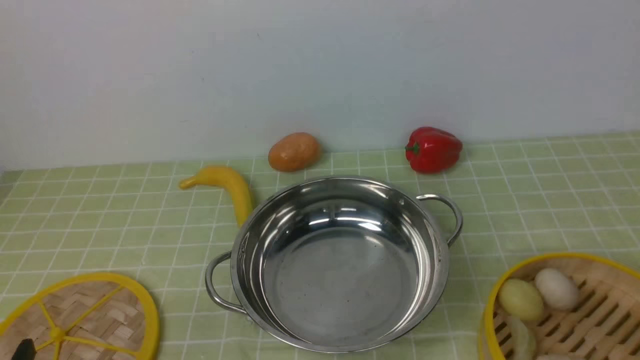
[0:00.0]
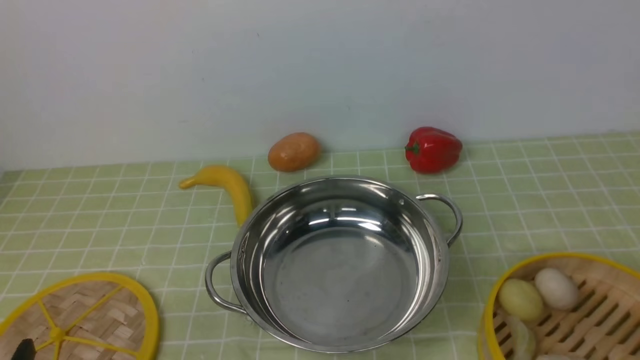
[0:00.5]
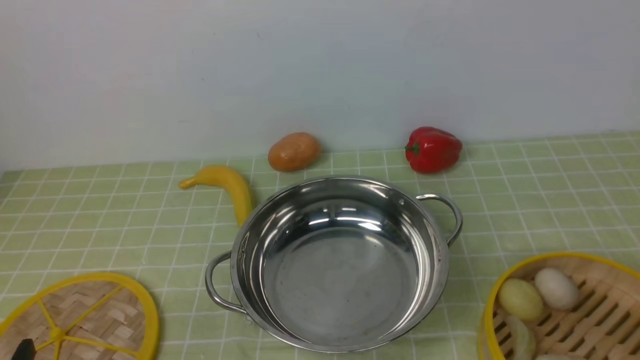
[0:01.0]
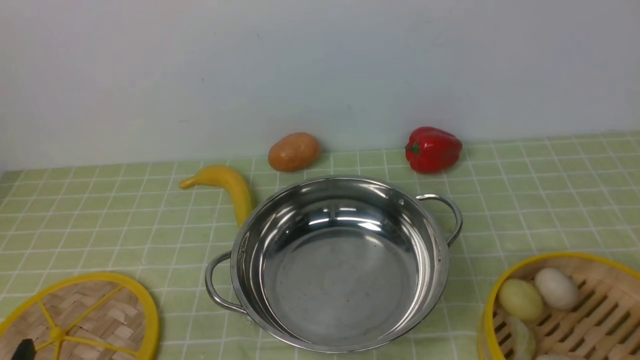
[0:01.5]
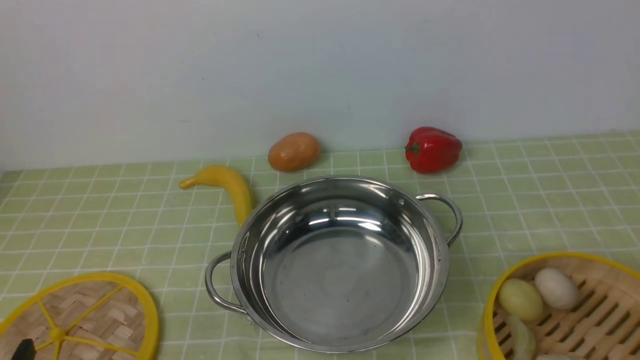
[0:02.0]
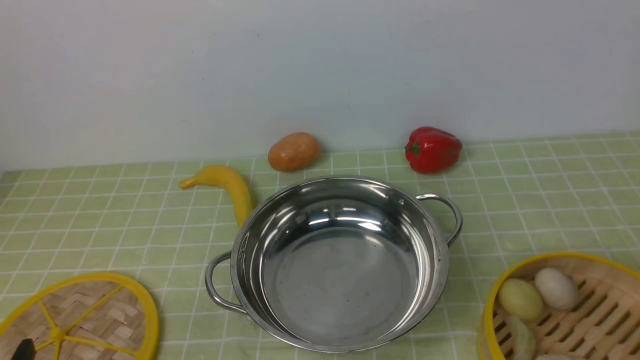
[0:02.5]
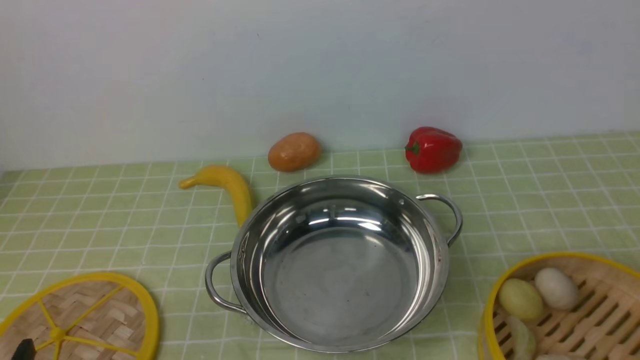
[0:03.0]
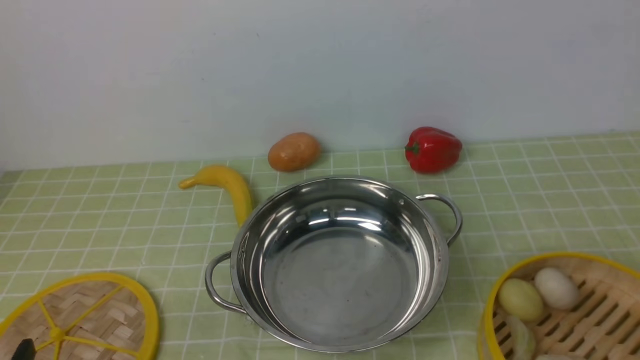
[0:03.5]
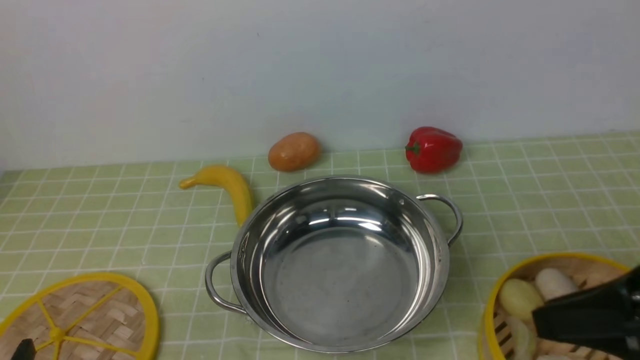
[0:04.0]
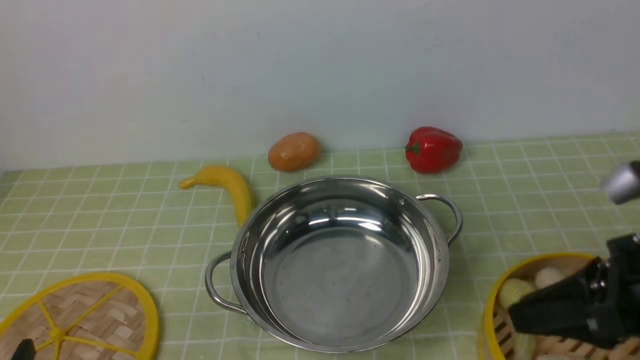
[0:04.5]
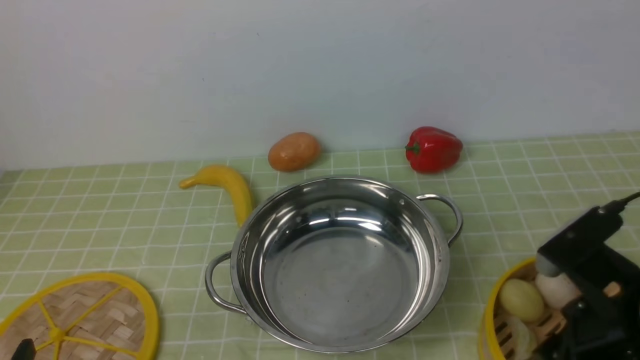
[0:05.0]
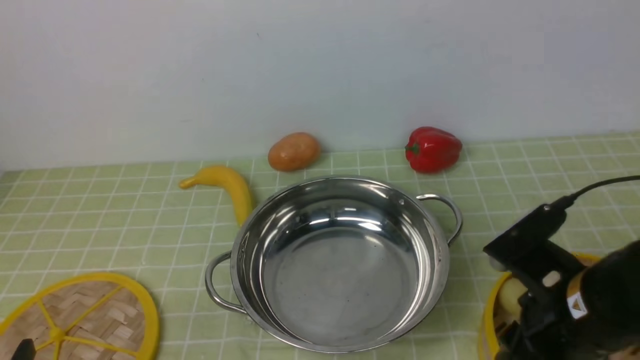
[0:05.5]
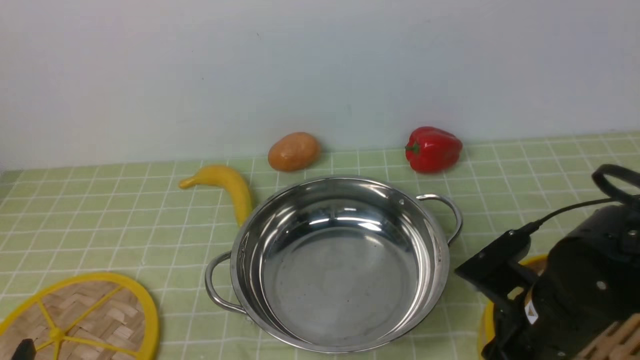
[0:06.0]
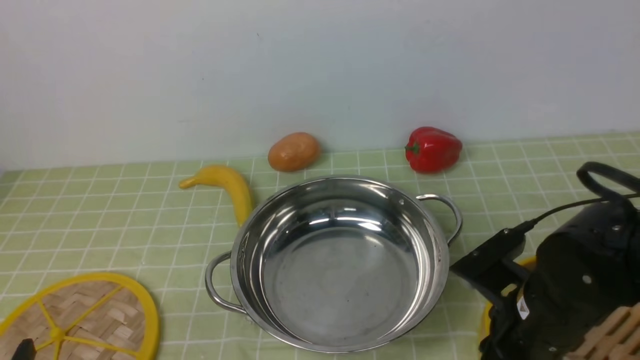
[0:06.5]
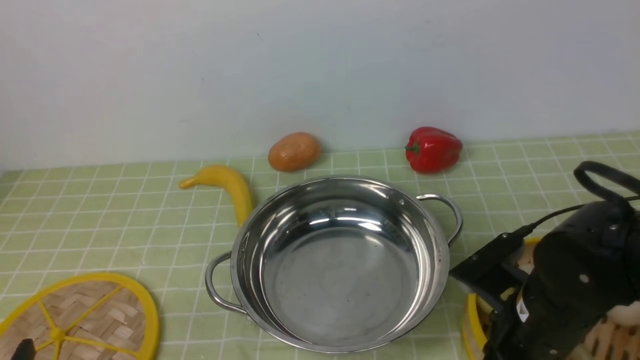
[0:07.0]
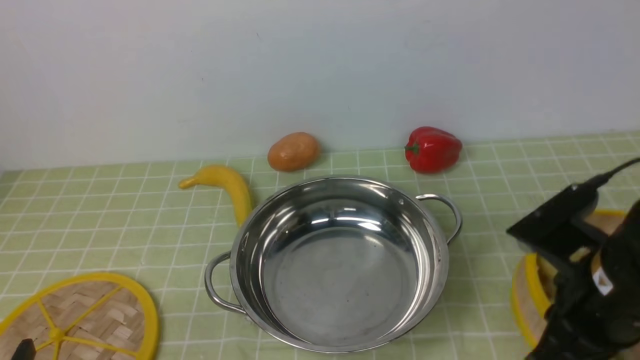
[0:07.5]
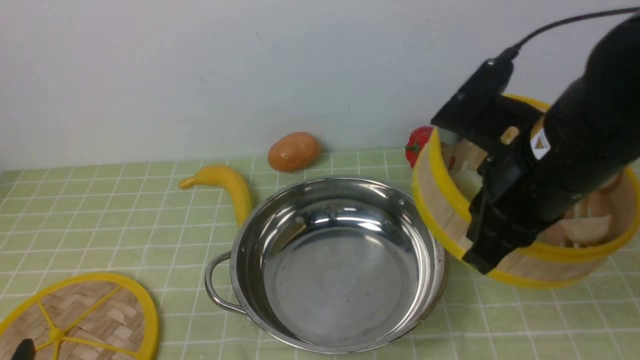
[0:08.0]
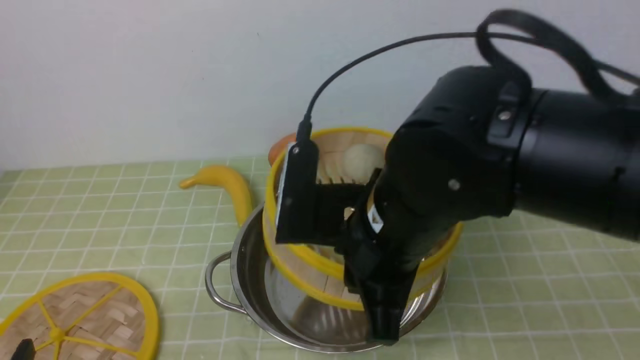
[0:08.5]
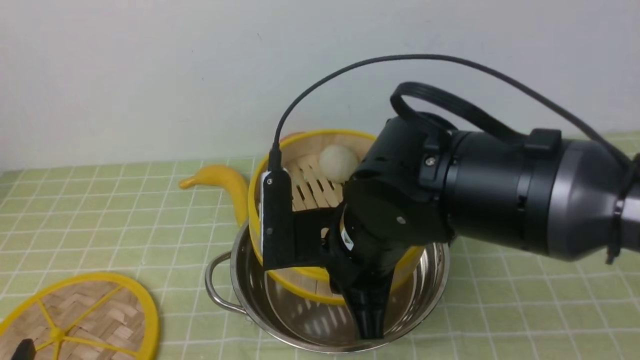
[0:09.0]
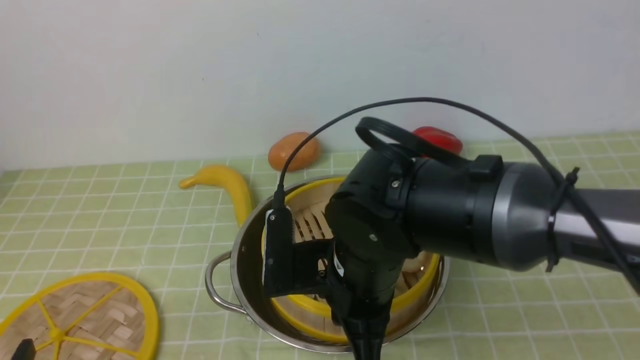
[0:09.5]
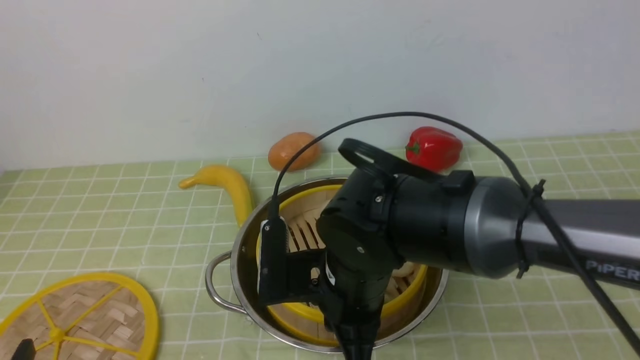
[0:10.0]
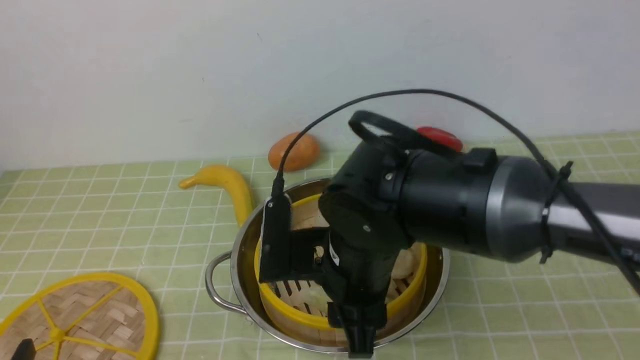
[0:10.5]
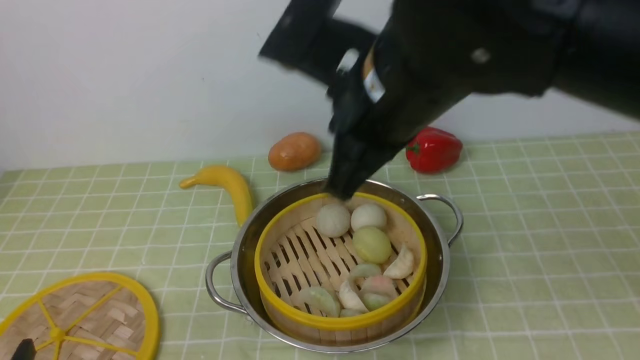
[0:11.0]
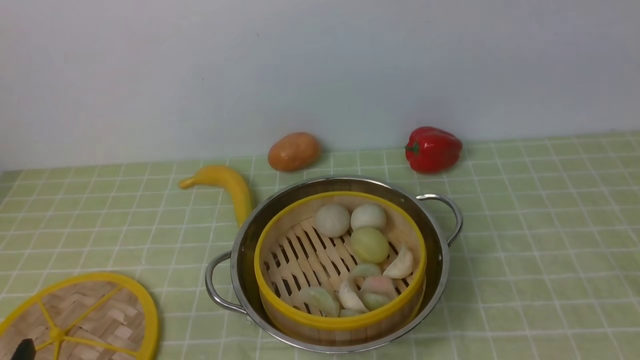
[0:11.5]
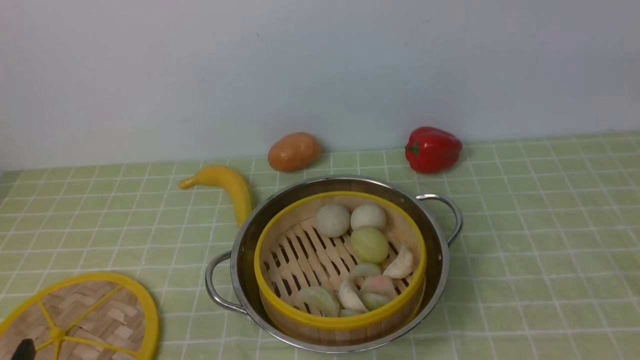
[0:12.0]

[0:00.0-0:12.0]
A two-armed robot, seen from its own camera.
Task of the whole recording: place the steamer in the pot on the green tablecloth, and put the lid on the steamer.
Step, 0:00.0 to 0:07.5: use the right arm to lift the steamer closest to it.
Step, 0:08.0 to 0:11.0: use the right arm to put the steamer into the iron steamer pot in the middle.
0:02.0 to 0:04.0: The right gripper shifts about 15 cm forward, to the left and upward.
0:04.0 to 0:06.0: The right gripper moves downward, to the left and forward, about 15 cm.
0:06.0 to 0:08.0: The right gripper goes roughly 15 cm upward, and closes up.
0:08.0 to 0:10.0: The right gripper moves to the left and downward, roughly 15 cm.
0:10.0 to 0:12.0: The right gripper shifts approximately 30 cm upward and to the right, and closes its fingers.

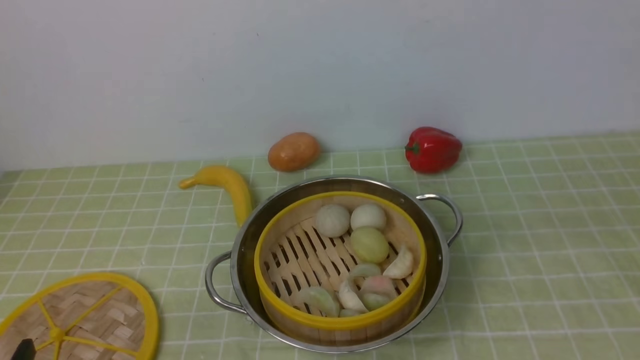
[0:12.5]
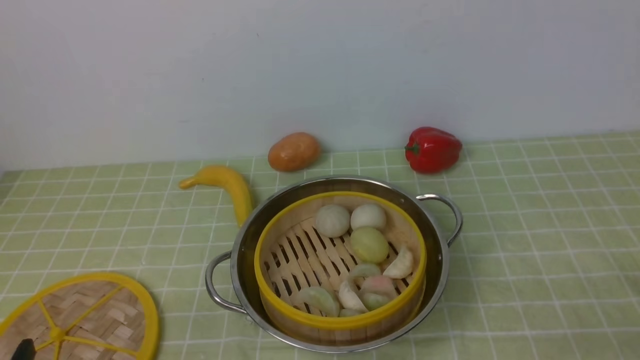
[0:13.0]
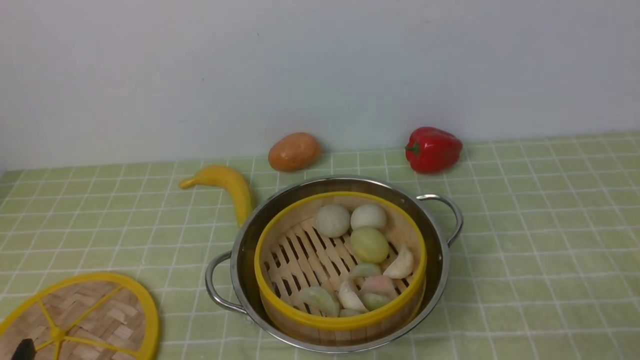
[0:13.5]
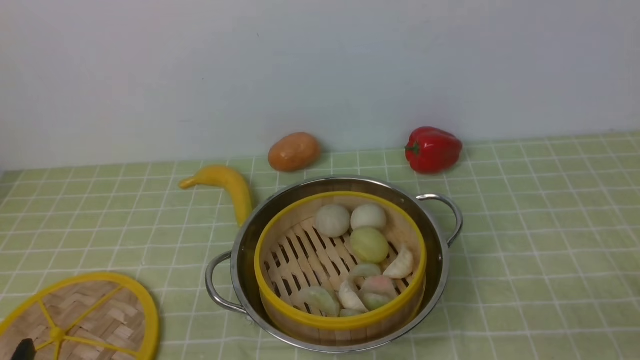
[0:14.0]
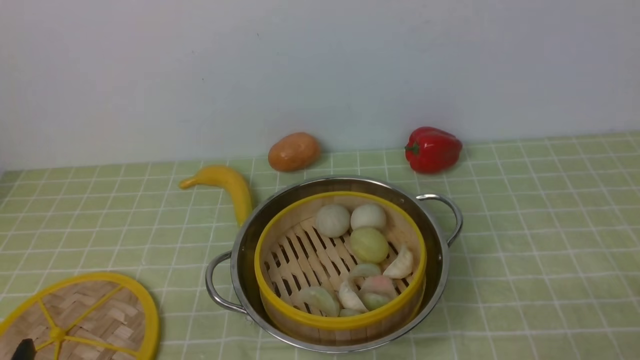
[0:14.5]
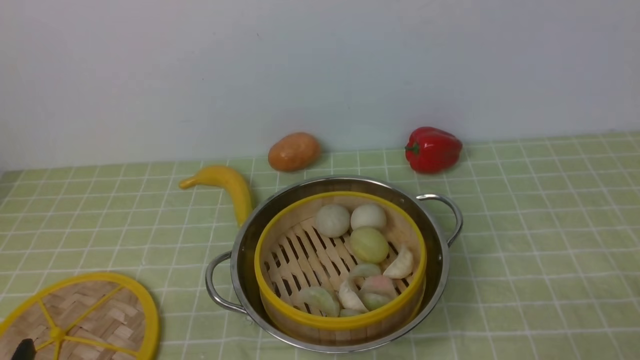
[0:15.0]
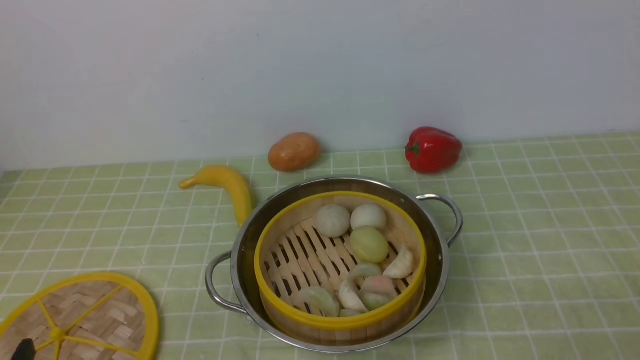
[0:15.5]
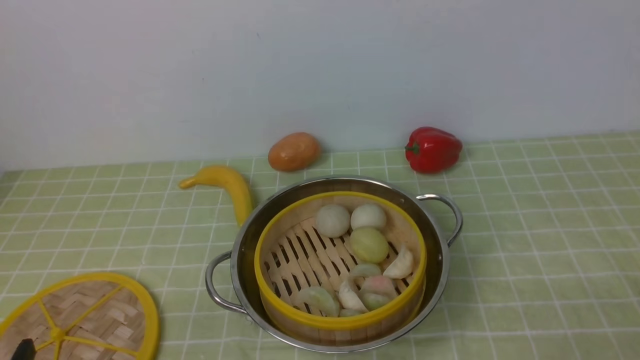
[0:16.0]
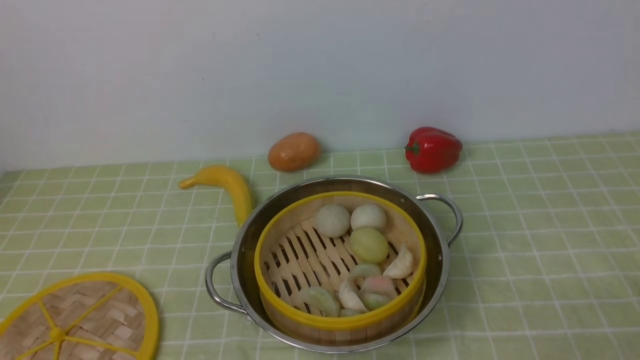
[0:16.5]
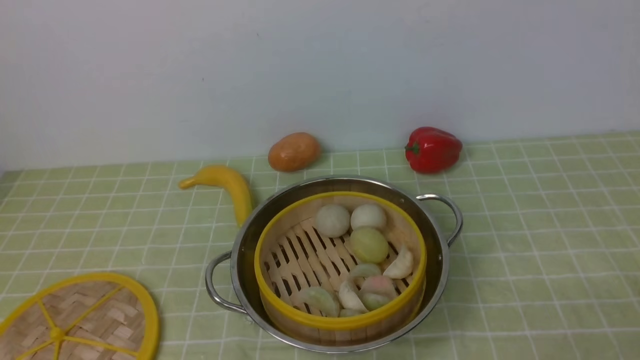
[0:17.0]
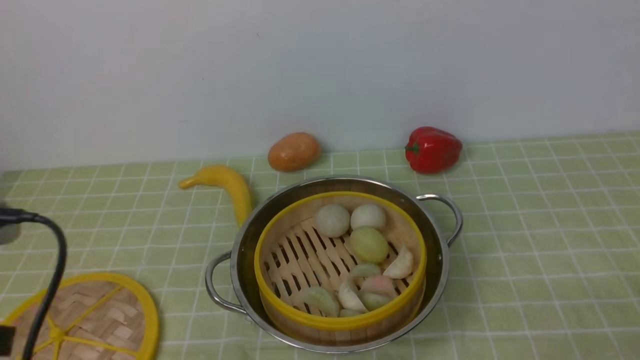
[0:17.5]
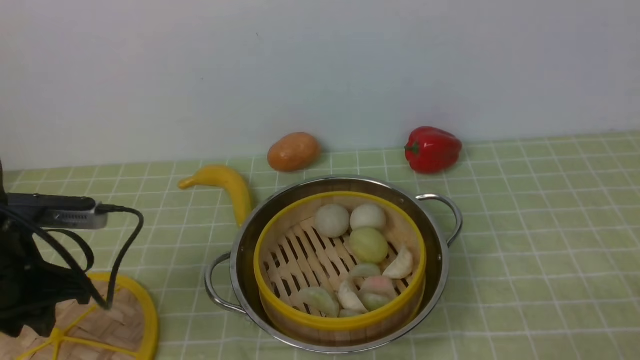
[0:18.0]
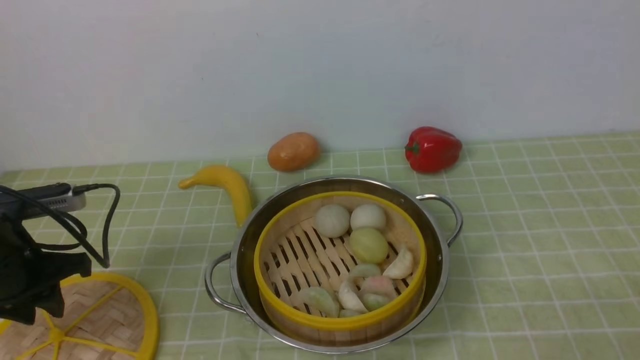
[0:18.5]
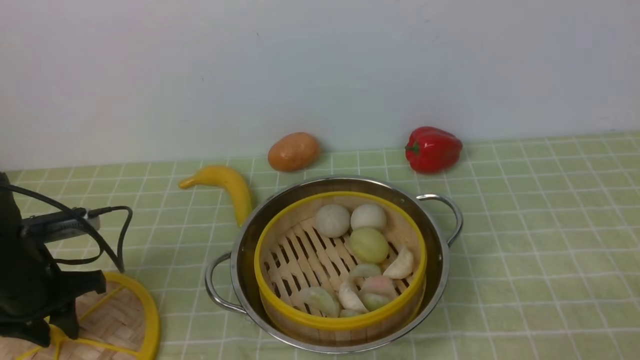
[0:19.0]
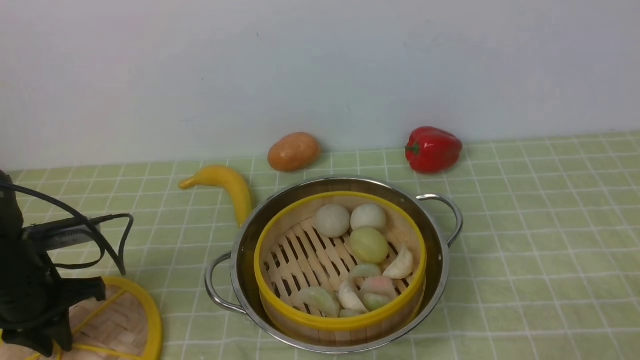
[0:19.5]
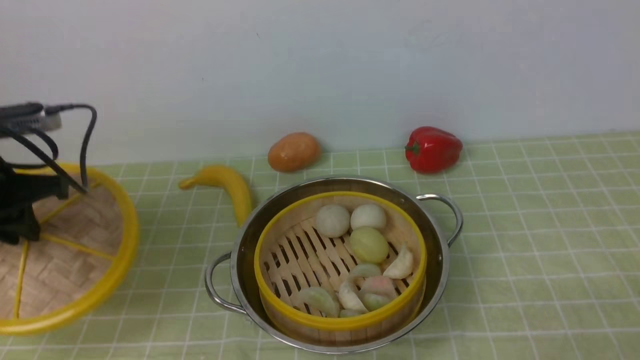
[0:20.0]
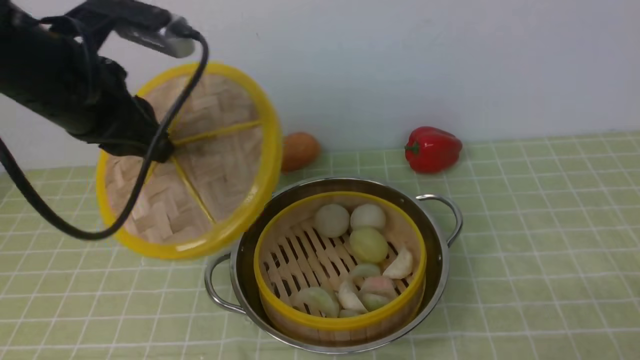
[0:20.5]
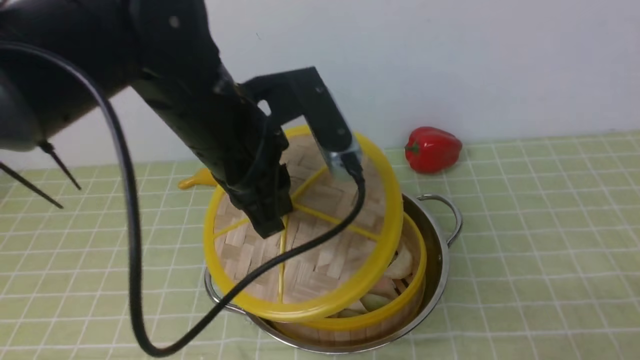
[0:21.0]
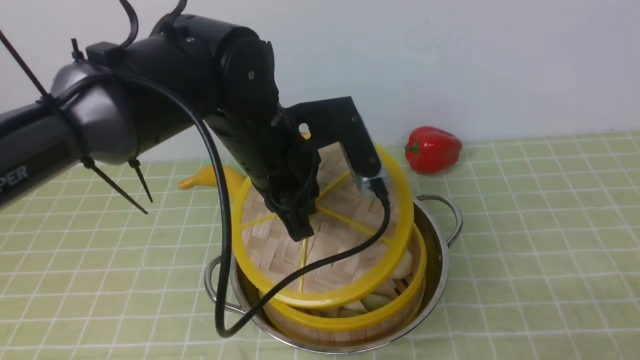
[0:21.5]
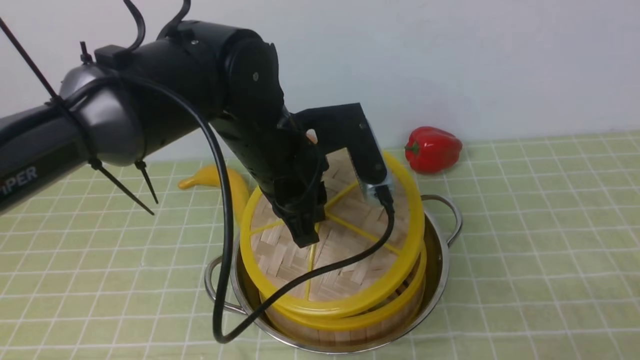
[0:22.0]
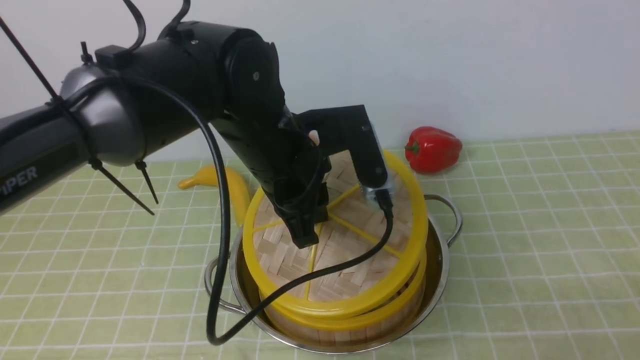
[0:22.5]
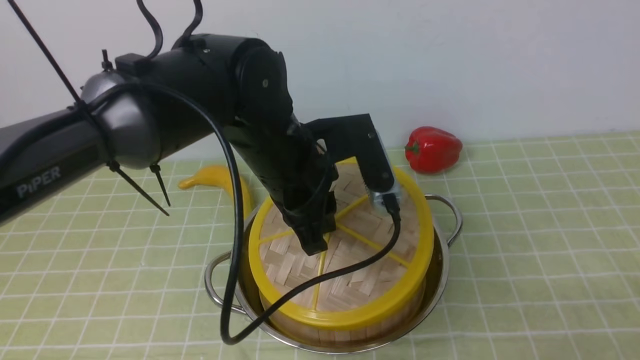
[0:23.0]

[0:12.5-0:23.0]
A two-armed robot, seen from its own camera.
Task of the whole recording: place the steamer in the pot on the green tablecloth, and put the lid on the steamer.
Step, 0:12.5 to 0:20.0: use the left arm to lift the lid of the steamer.
0:16.5 to 0:19.0: The left gripper is displaced forward by about 25 cm.
0:19.0 to 0:21.0: The left gripper travels to the right and upward by some 30 cm, and closes its fingers.
0:21.0 to 0:23.0: The left gripper travels downward by roughly 5 cm.
